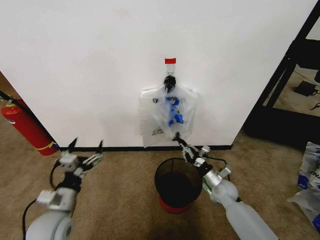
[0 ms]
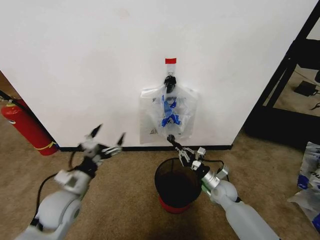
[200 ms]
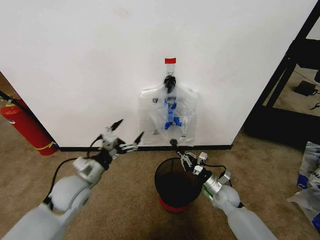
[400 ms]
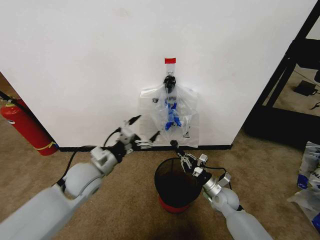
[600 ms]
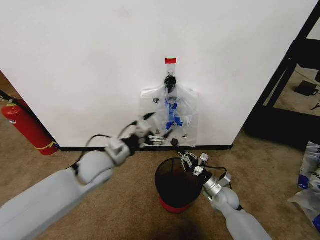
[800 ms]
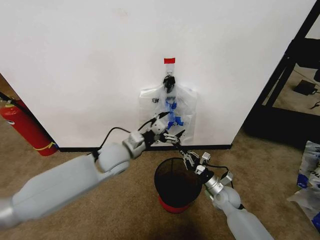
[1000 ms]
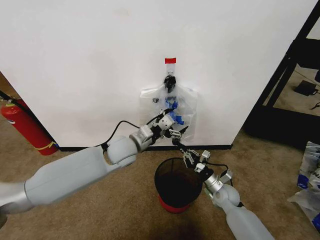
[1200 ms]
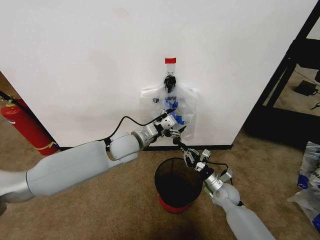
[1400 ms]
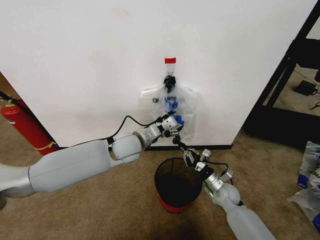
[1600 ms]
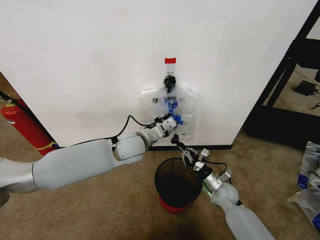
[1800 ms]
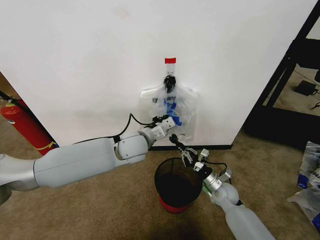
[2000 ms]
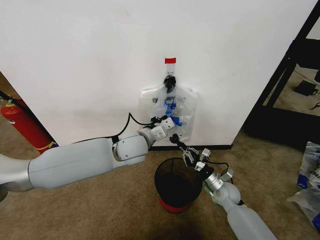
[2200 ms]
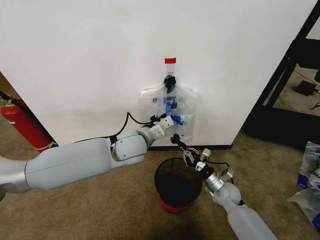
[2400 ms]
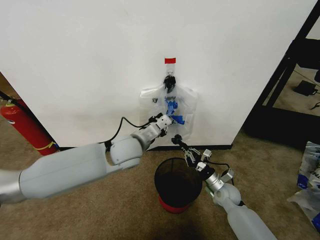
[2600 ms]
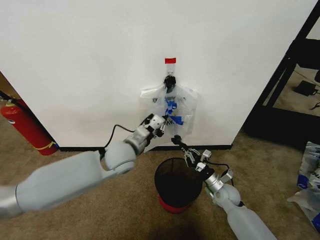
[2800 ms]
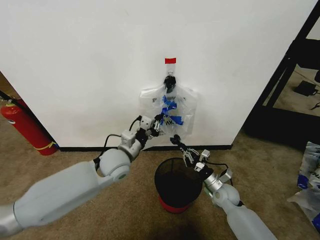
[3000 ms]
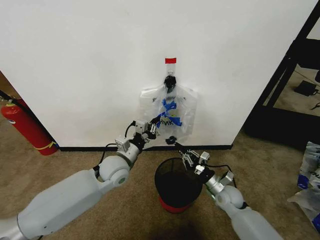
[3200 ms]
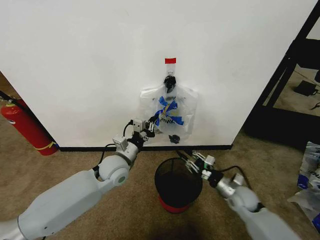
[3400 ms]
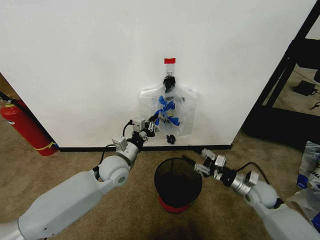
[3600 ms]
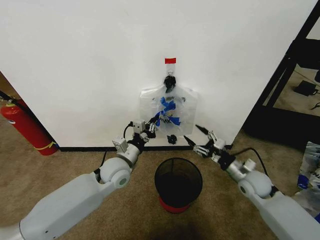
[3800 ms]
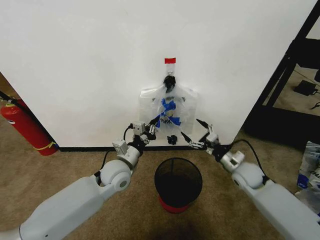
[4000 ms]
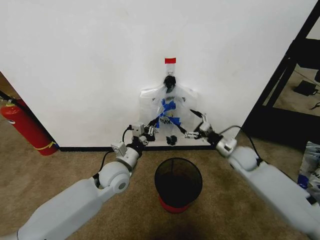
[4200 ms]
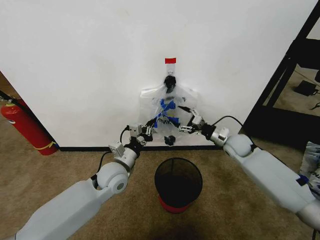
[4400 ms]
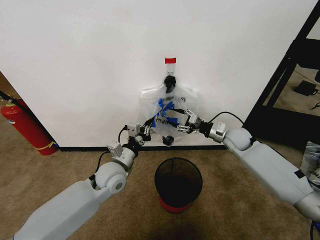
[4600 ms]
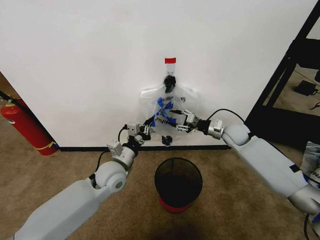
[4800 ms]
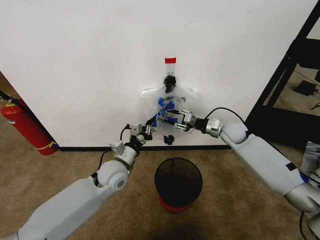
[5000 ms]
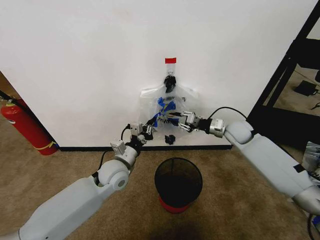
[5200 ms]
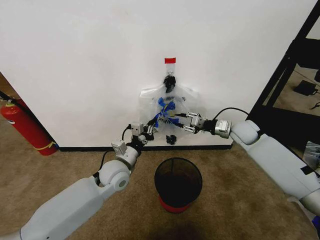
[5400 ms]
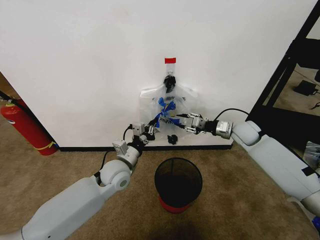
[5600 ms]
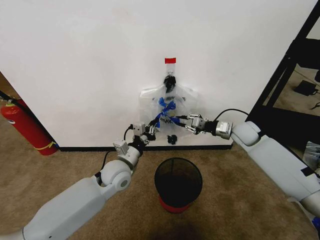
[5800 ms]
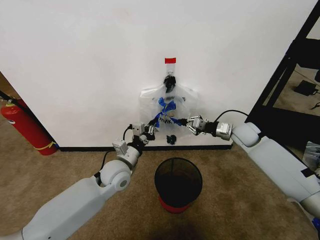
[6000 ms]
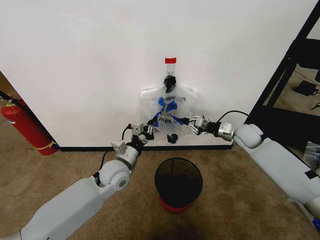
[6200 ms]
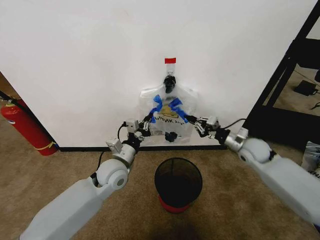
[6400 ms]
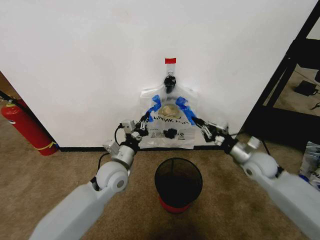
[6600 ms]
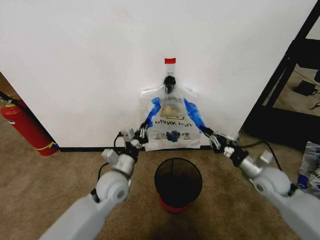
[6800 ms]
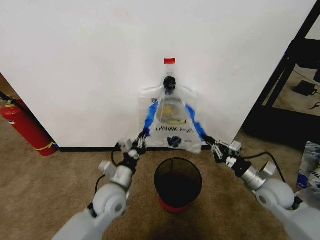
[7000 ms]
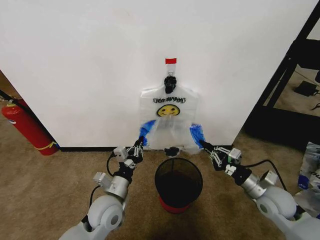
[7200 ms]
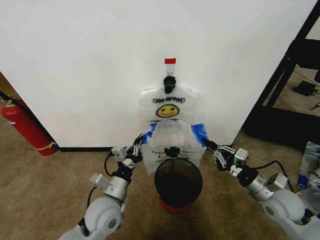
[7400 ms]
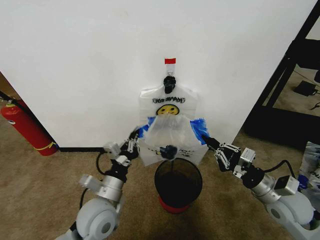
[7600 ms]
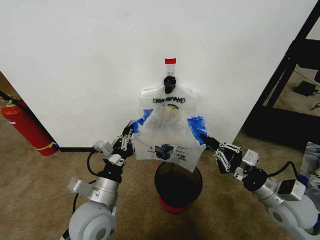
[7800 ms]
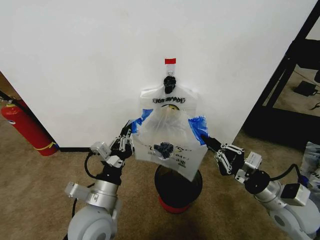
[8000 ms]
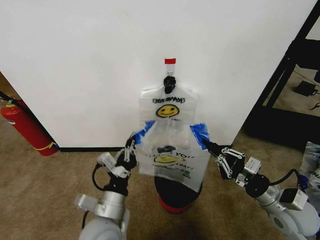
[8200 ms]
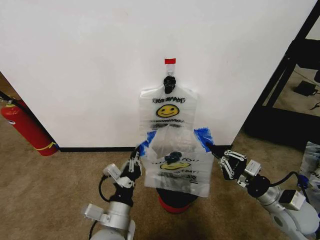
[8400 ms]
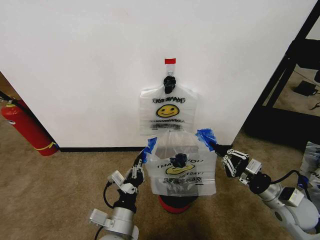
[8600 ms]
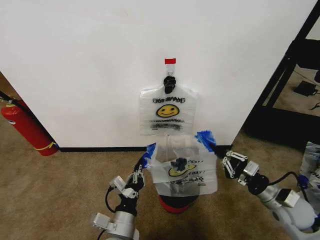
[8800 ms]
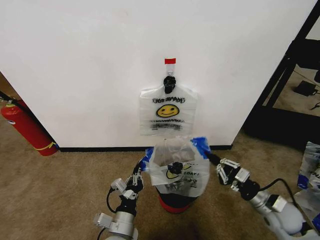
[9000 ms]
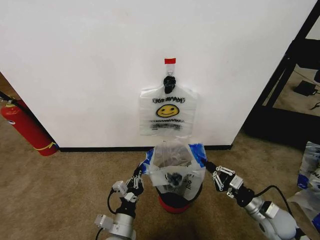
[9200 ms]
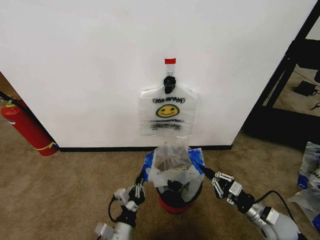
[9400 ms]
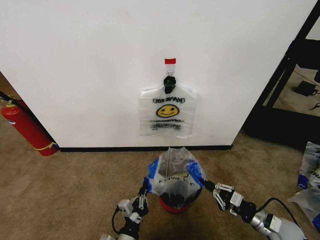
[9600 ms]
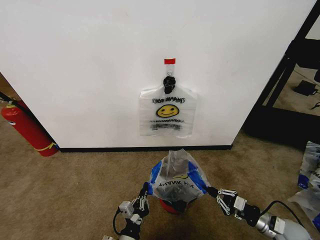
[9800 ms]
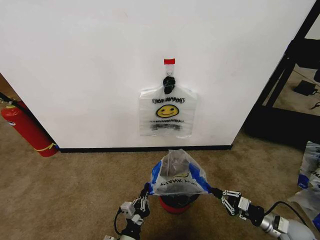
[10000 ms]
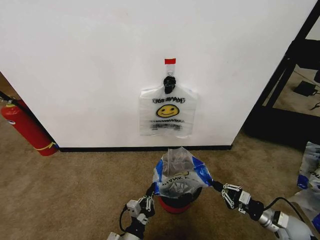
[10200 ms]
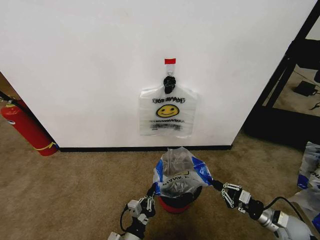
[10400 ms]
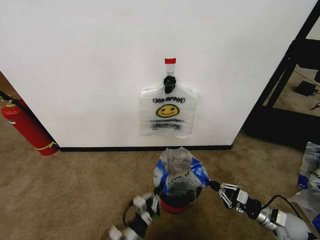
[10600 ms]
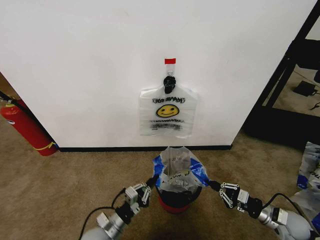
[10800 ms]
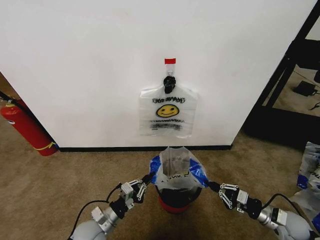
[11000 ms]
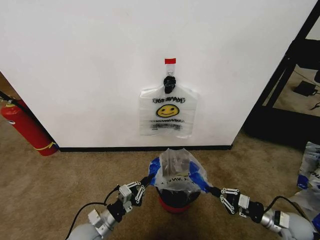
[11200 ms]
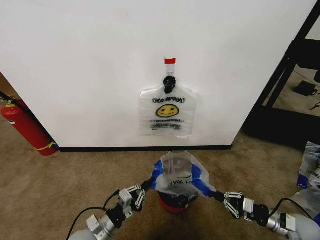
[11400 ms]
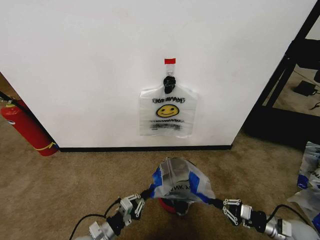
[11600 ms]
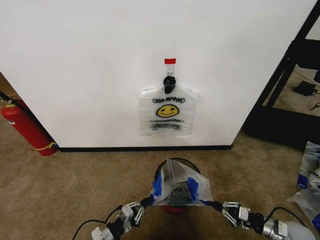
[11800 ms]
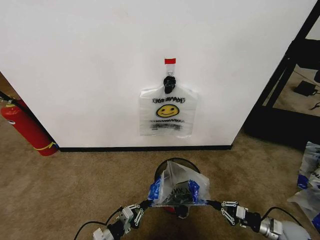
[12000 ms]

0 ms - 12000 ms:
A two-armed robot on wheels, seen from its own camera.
Task of the whole recording: Pick up the garbage bag from the wall and place it over the trash bin.
0 ms - 1600 ms: The left gripper heads forward, to the right and upward, covering about 30 cm, and closes.
1600 ms - 3000 ms: The left gripper shifts by approximately 5 cm, and closes up.
3000 ms - 4400 ms: The right gripper goes roughly 20 cm upward and forward, and opens its fingers.
4400 ms - 6000 ms: The right gripper shifts by roughly 5 cm, and closes up.
6000 ms - 7600 ms: The right gripper is displaced backward by roughly 25 cm. Meanwhile the left gripper shifts approximately 15 cm backward.
7600 ms - 9000 ms: The left gripper moves downward and backward, some 10 cm. Meanwhile the right gripper goes some 10 cm downward.
9000 ms - 10400 ms: The right gripper goes about 10 cm downward and to the right. The left gripper moves downward, roughly 10 cm.
10400 ms - 12000 ms: The left gripper shifts approximately 15 cm to the left; the right gripper changes place by some 5 cm.

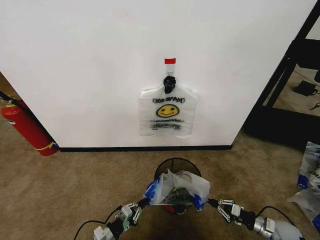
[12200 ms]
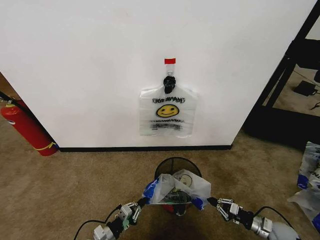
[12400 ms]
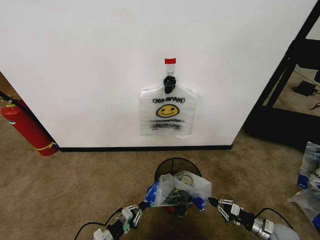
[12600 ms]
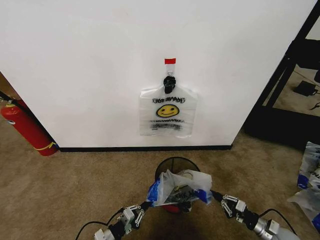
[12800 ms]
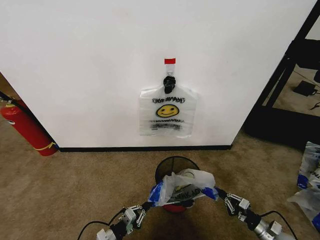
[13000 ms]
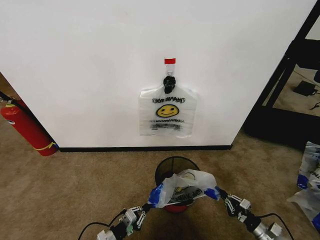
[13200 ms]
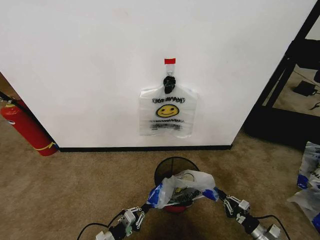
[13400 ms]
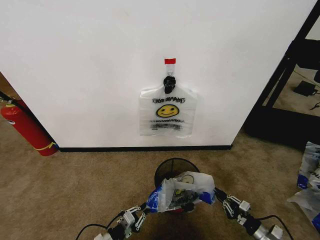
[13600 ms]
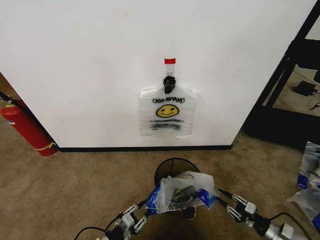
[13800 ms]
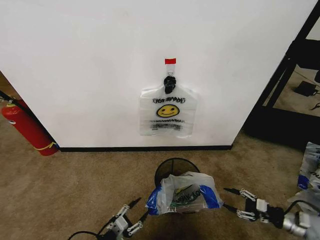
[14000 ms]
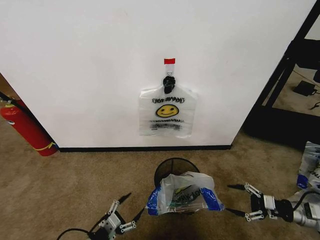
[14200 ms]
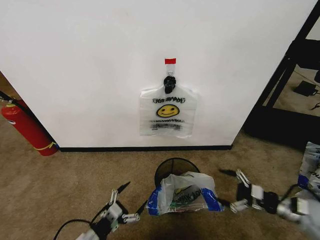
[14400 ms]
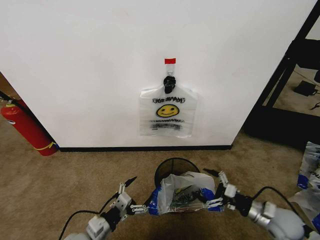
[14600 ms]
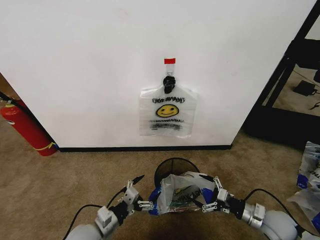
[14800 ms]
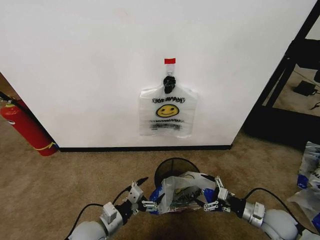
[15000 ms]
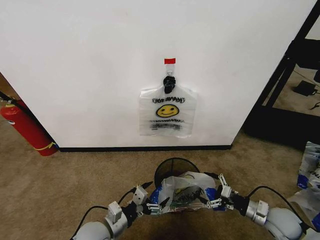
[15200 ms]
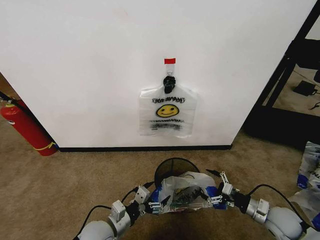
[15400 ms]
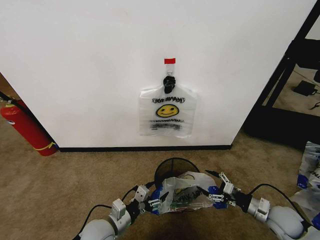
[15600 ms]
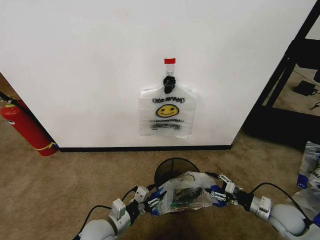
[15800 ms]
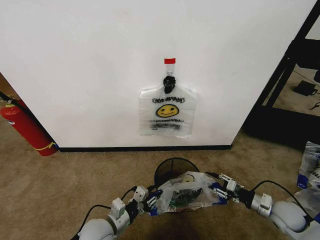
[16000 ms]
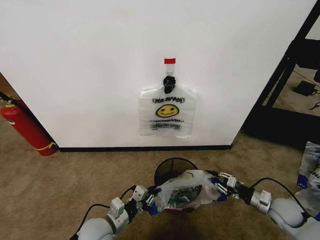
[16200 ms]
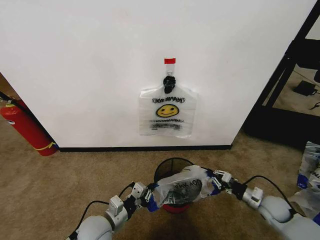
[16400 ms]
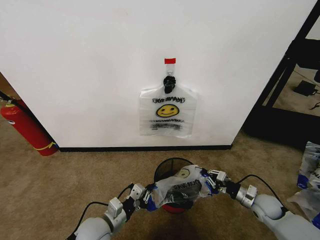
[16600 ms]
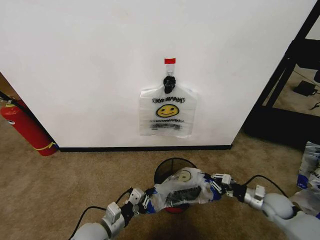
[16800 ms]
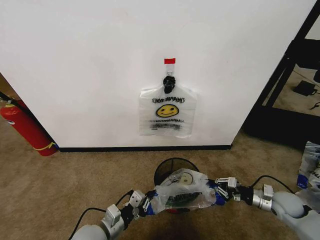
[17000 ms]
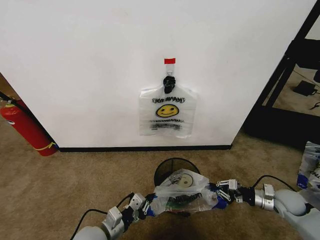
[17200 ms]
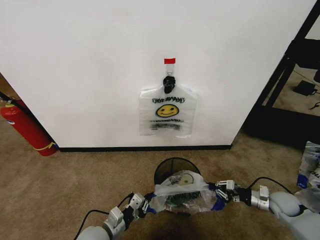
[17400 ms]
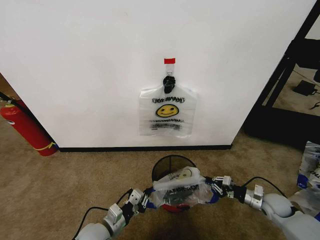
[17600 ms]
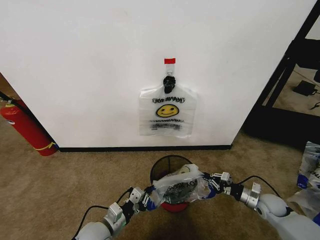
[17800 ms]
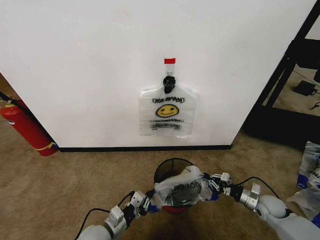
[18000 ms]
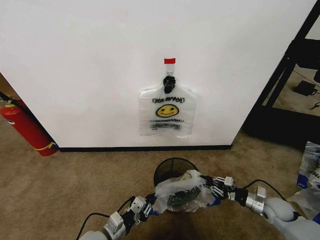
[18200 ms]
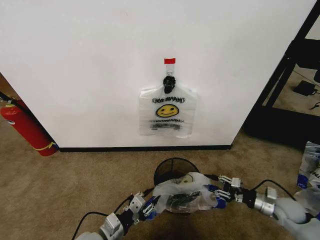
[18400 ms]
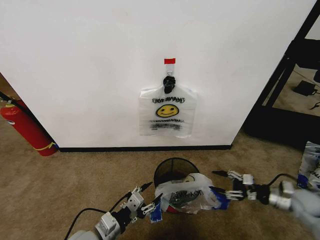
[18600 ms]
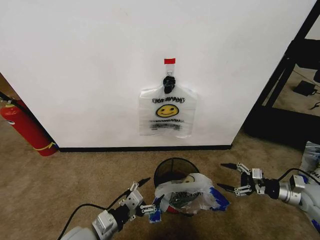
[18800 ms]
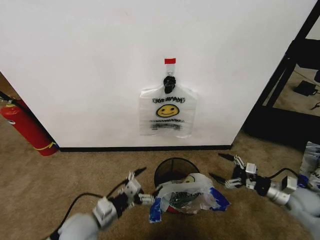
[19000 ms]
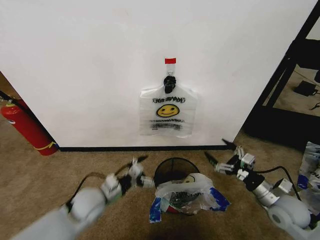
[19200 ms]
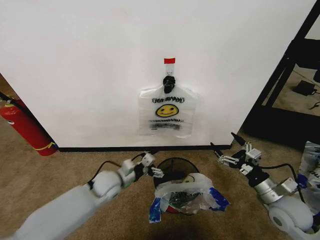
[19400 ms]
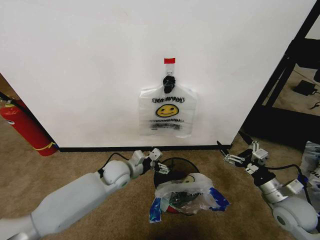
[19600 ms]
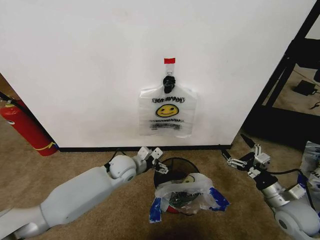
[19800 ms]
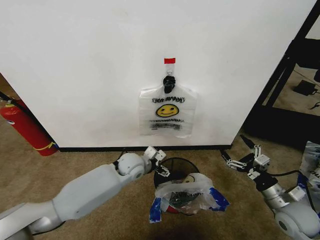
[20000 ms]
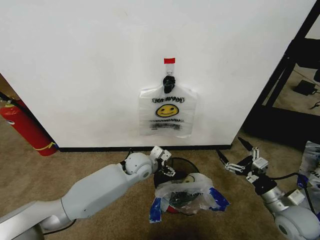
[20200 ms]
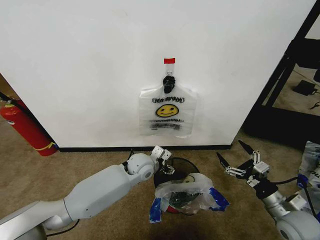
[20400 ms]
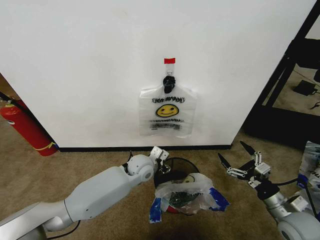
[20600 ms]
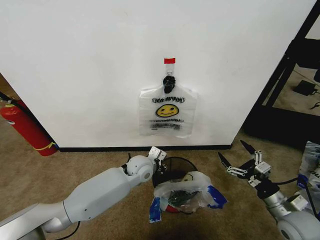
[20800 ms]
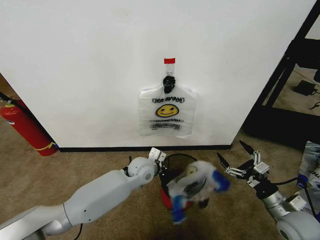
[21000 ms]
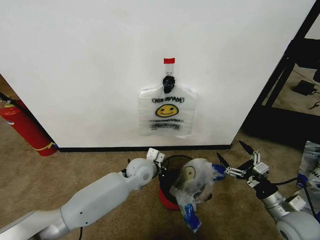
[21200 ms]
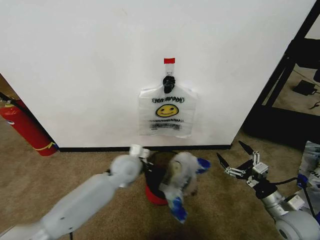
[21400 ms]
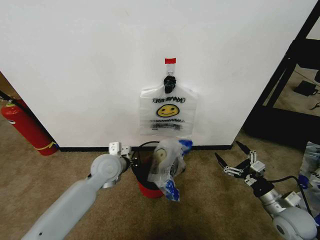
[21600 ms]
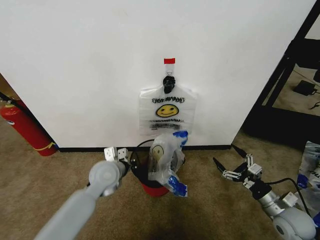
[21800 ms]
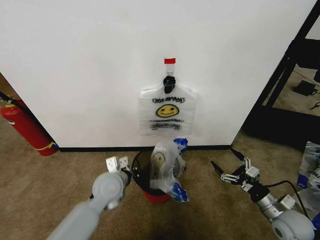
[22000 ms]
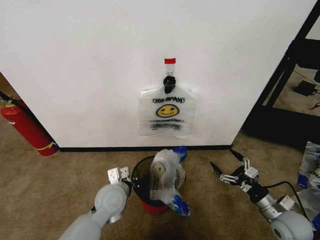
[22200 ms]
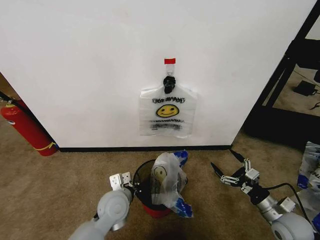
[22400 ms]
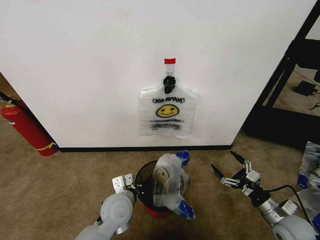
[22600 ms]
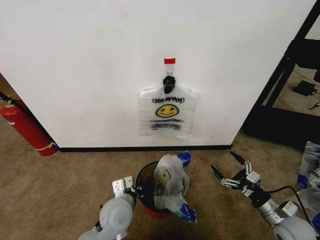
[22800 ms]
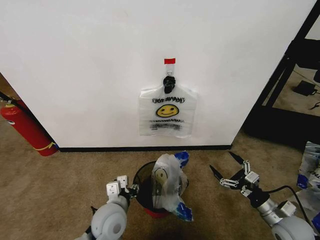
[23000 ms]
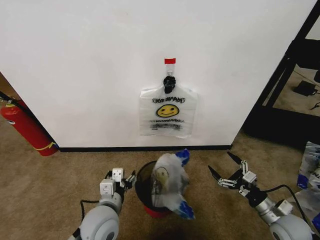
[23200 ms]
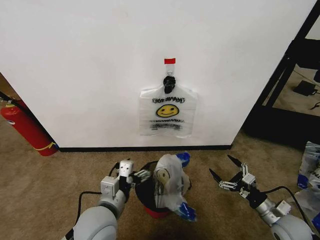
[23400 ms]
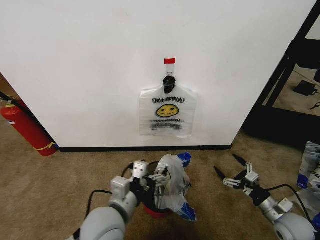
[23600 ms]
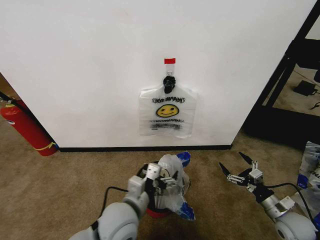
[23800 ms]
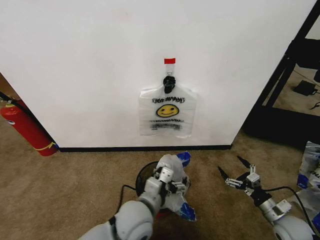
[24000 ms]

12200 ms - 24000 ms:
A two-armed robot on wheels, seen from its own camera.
Task of the whole recording: Pick up the garbage bag from the wall and place it over the trash bin.
12200 ms - 13600 ms: The right gripper goes some 5 cm backward.
13600 ms - 15200 ms: The right gripper goes about 15 cm upward and forward, and opens its fingers, while the left gripper is displaced upward and to the right by some 15 cm, and opens up.
15200 ms - 16600 ms: The right gripper goes about 5 cm forward, and closes. The left gripper closes its fingers.
18200 ms - 19600 ms: The right gripper moves upward, roughly 15 cm, and opens. The left gripper heads forward, covering about 20 cm, and opens up.
19600 ms - 21000 ms: The left gripper is displaced to the right by approximately 10 cm, and closes its fingers.
21000 ms - 22600 ms: The left gripper moves backward and to the left, about 15 cm.
22600 ms - 24000 ms: The left gripper travels to the right and upward by approximately 10 cm, and opens its fingers.
